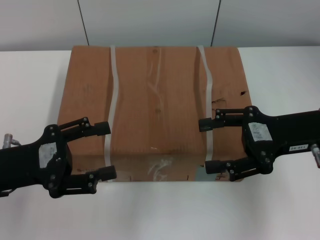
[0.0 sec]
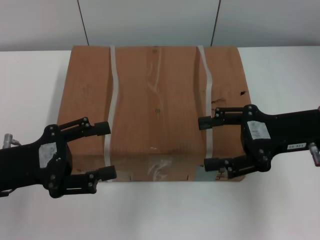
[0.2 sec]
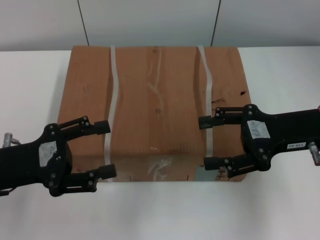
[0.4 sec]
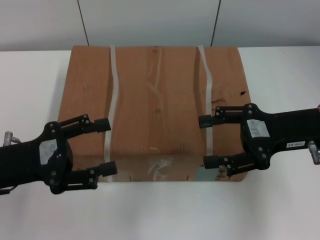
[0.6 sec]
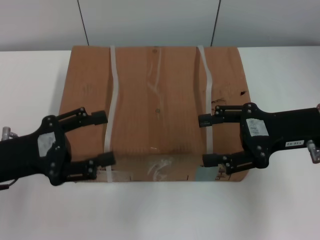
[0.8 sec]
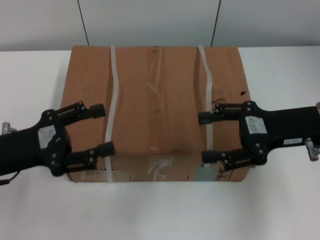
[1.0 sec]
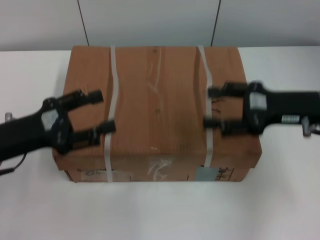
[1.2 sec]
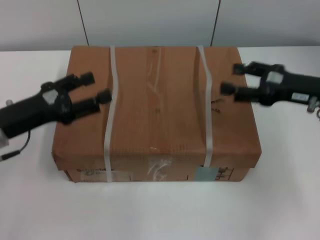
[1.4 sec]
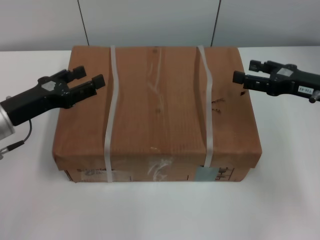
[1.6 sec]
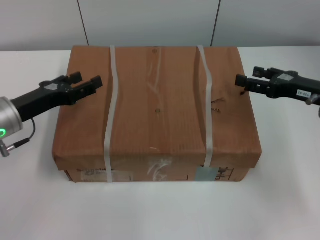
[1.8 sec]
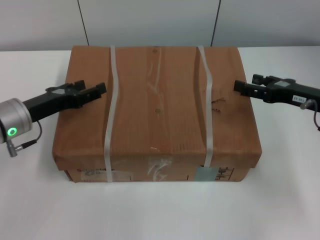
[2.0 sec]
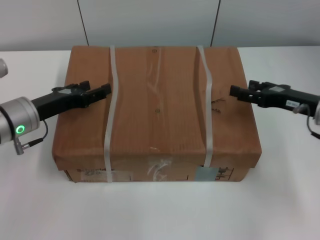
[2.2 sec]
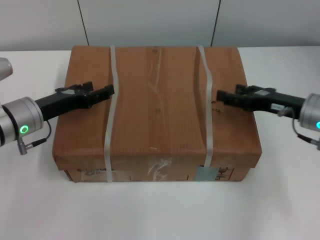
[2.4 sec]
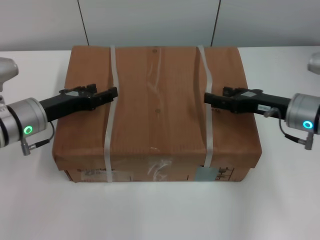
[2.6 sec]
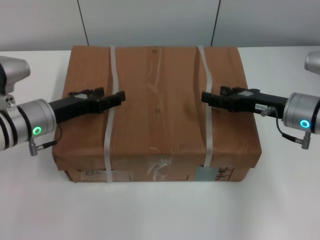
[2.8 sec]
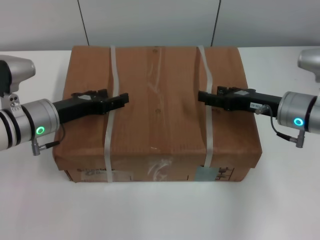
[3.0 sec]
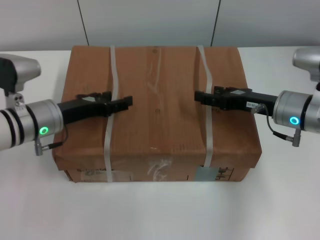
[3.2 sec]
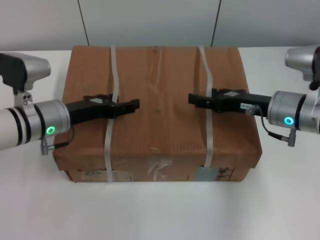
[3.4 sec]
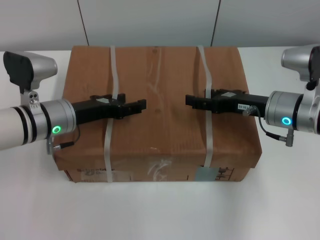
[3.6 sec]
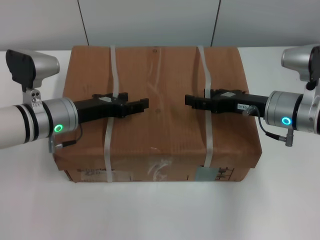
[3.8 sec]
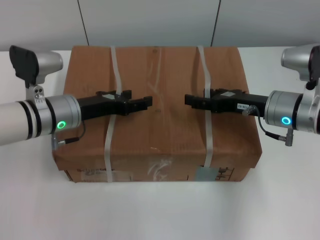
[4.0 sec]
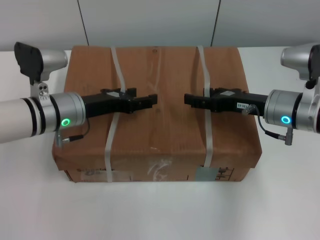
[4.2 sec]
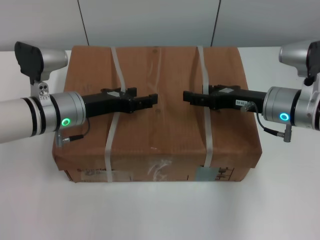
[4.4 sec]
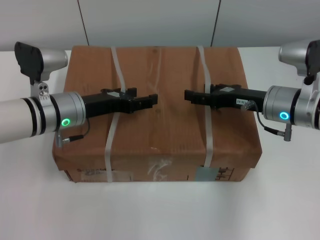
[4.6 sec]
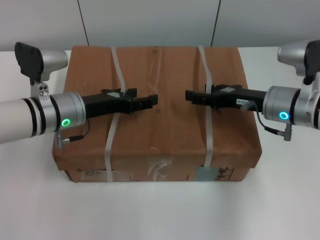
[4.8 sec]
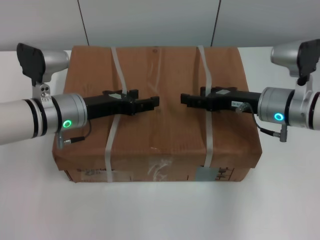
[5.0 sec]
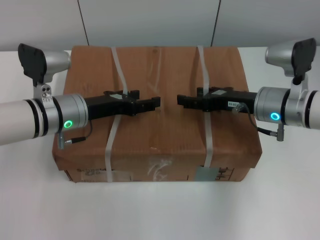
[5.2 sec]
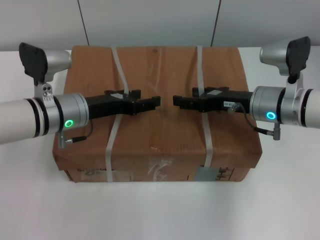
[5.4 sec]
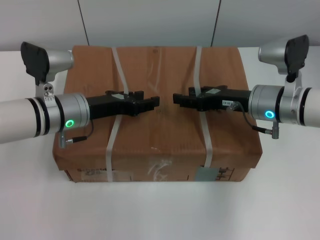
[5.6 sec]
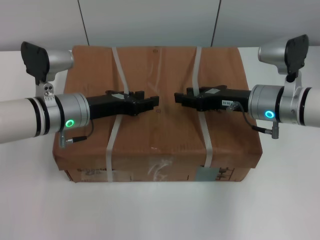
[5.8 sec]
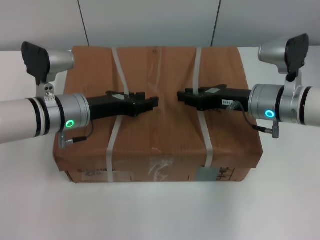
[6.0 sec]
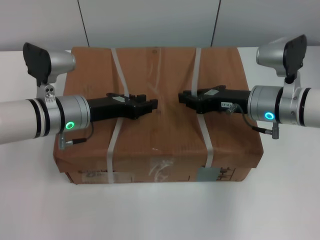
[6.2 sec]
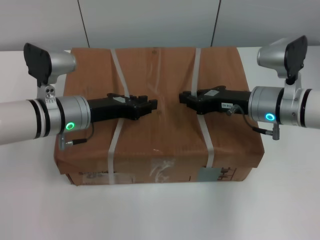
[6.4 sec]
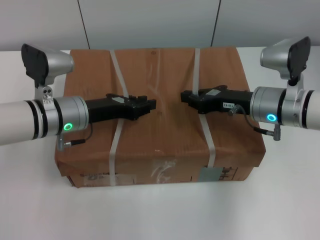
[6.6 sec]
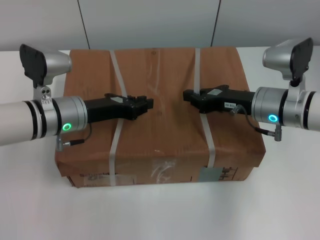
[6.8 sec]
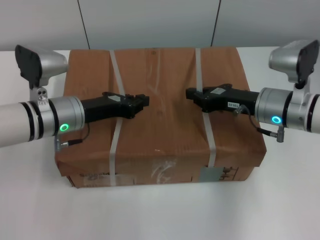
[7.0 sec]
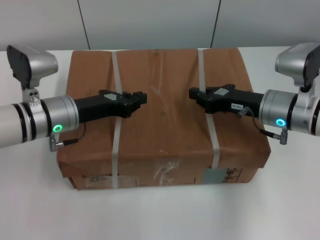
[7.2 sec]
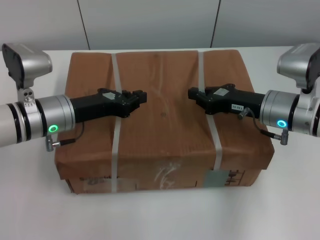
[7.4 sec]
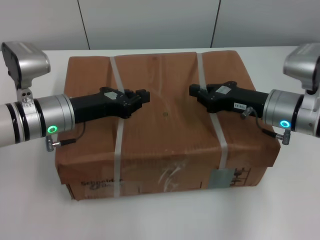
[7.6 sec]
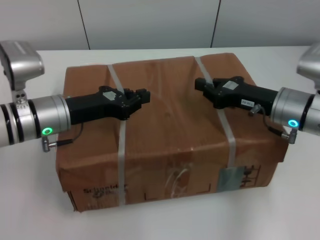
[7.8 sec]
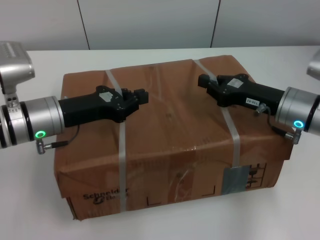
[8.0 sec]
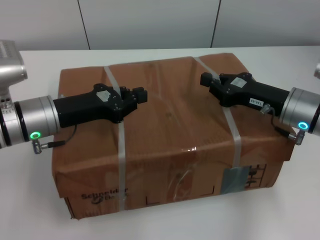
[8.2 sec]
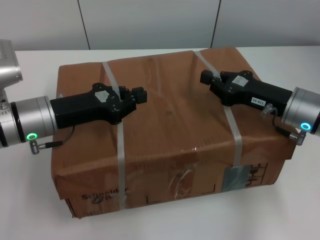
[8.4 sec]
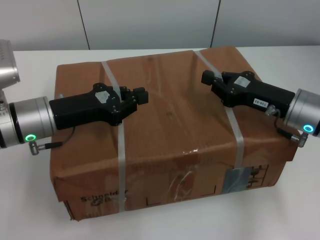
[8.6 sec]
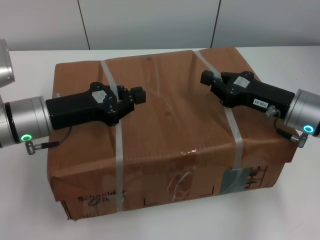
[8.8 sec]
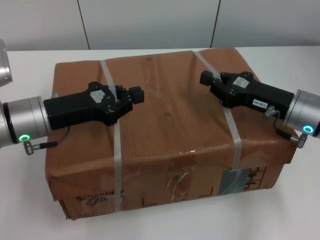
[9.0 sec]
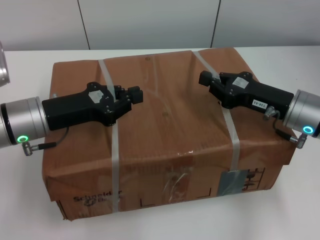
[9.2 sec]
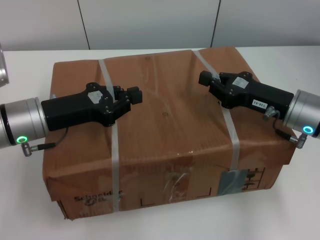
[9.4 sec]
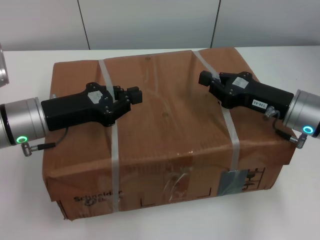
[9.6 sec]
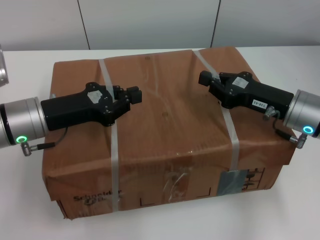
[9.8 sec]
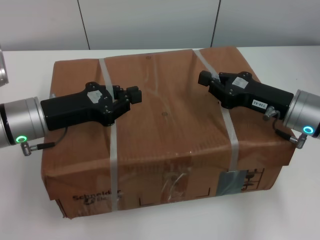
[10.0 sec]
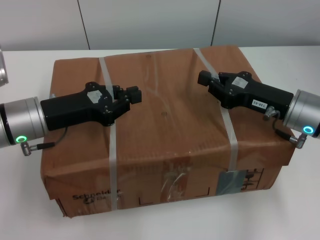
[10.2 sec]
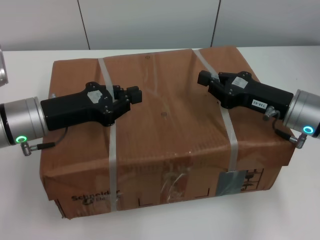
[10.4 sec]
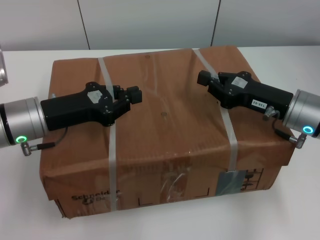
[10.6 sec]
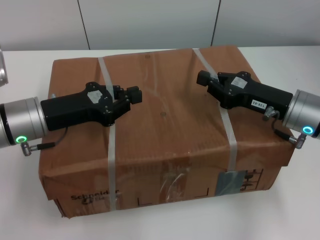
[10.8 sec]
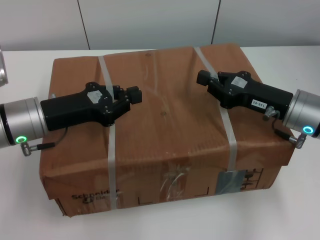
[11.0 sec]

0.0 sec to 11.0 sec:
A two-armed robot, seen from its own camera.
Task of the whole recording: pick up the box from the table with both arms.
Step, 0.0 sec to 6.8 sec: Grasp the bandage with left gripper.
Step, 0.0 sec to 6.8 sec: Grasp the bandage with right gripper.
Step, 7.0 sec to 9.2 sec: Lift the box with left gripper.
Step, 7.0 sec to 9.2 sec: Lift the box with right gripper.
0.0 sec to 1.6 sec: The left gripper goes some 5 cm forward. The right gripper goes about 5 cm to the right.
1.6 sec to 3.2 sec: The right gripper moves to the left, roughly 5 cm. Meanwhile the left gripper is displaced to the right by roughly 5 cm.
3.2 sec to 4.8 sec: The grippers stay close to where they were, moving slightly.
4.8 sec to 6.2 sec: The right gripper closes. The left gripper closes.
6.2 sec to 7.8 sec: The left gripper closes its fingers.
9.4 sec to 11.0 sec: Both grippers stay about where they are.

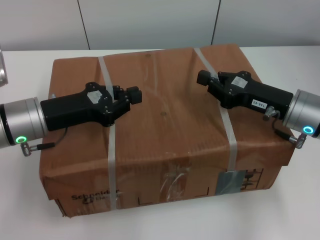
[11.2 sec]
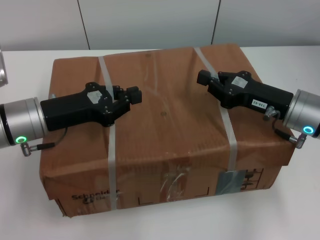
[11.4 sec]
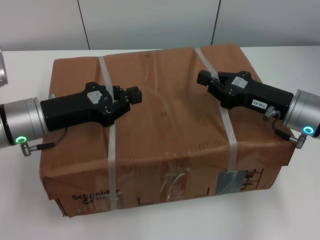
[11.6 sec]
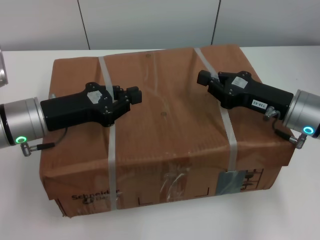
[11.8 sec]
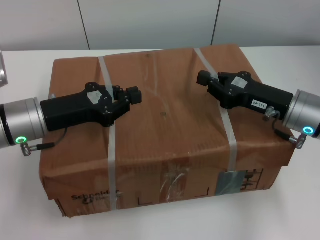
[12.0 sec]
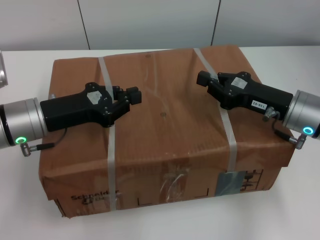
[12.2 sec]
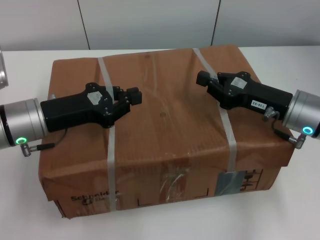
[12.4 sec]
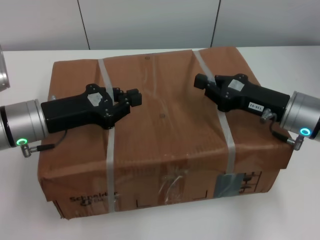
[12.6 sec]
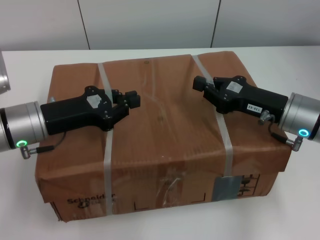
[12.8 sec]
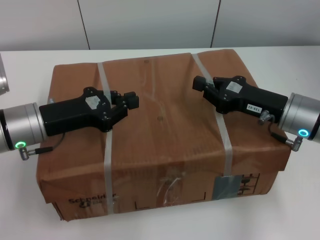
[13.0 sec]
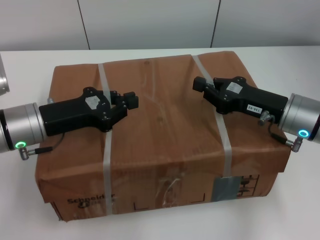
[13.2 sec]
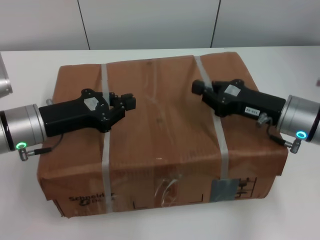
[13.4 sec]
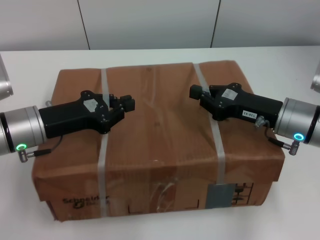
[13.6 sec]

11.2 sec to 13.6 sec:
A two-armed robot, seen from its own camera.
Task of the whole recording: pick up the box from the table with both arms.
11.2 sec to 12.4 sec: Neither gripper changes place.
